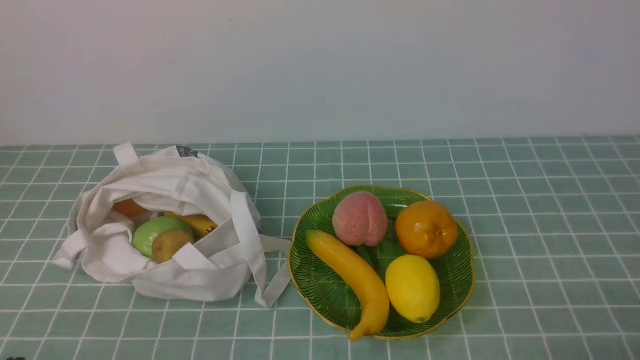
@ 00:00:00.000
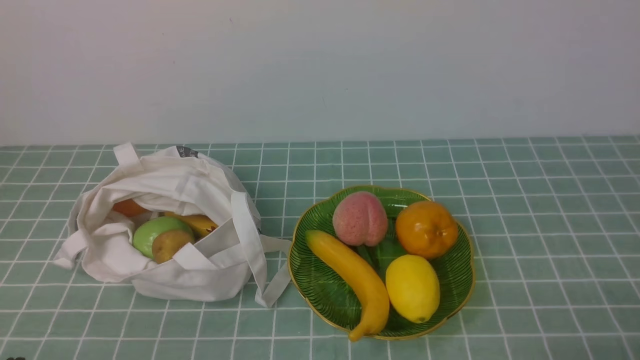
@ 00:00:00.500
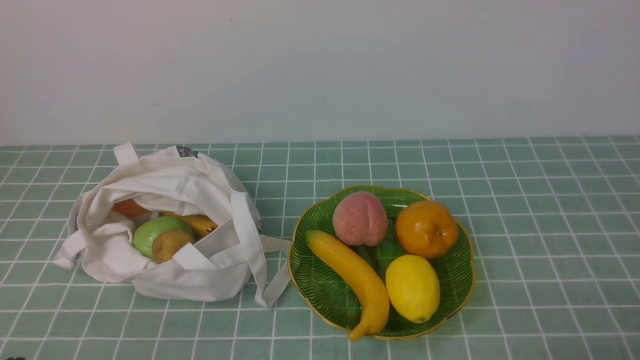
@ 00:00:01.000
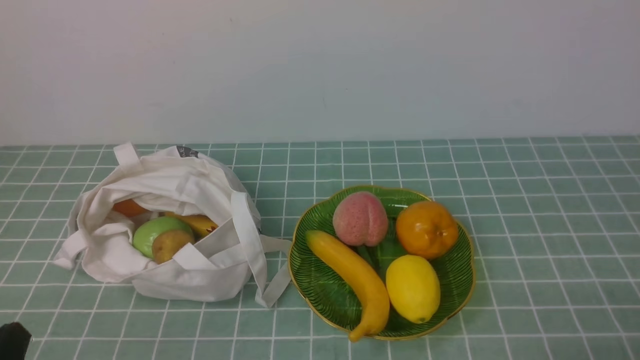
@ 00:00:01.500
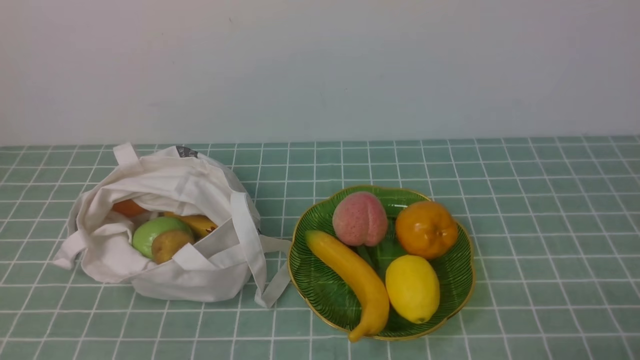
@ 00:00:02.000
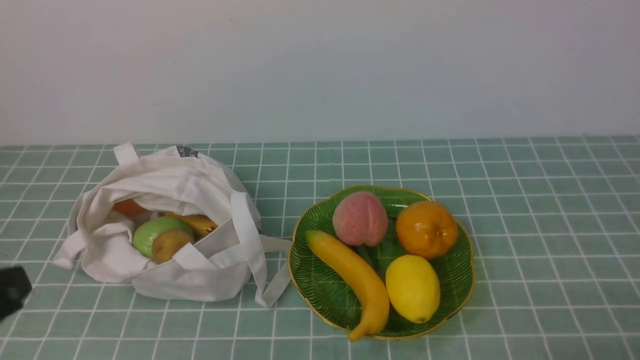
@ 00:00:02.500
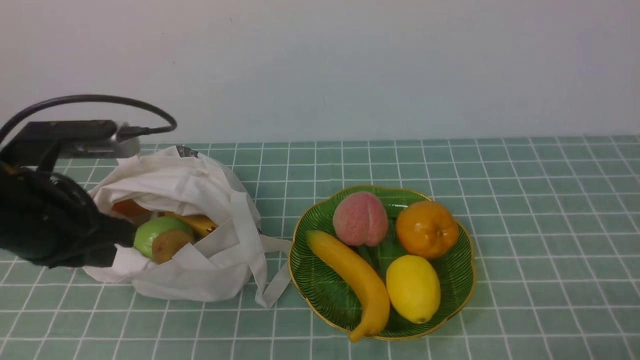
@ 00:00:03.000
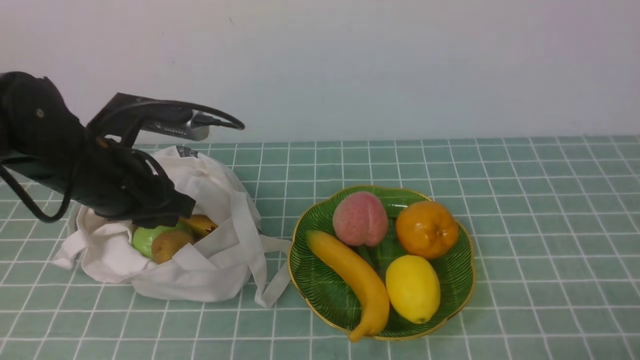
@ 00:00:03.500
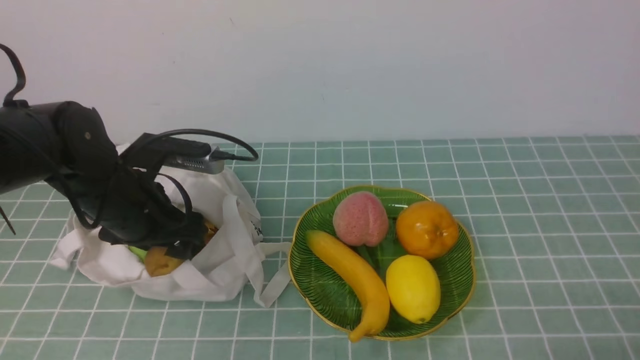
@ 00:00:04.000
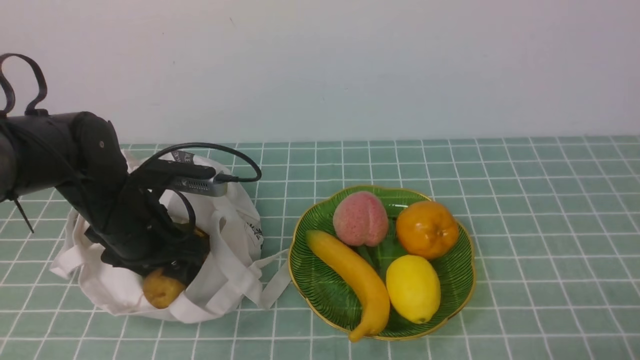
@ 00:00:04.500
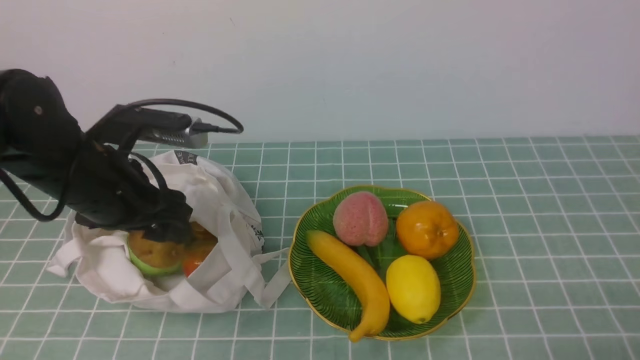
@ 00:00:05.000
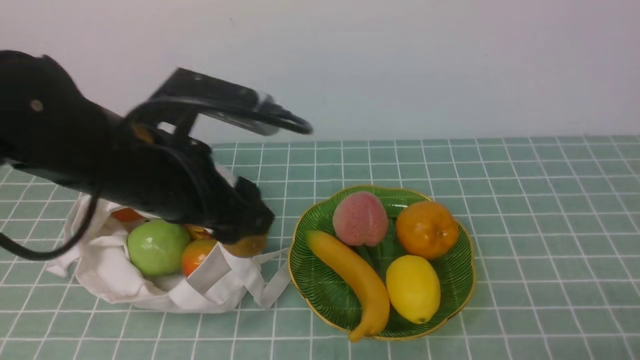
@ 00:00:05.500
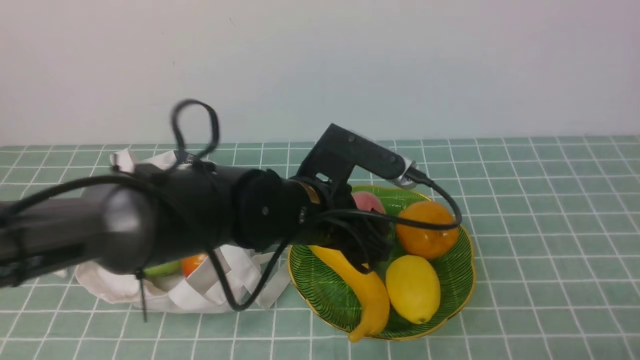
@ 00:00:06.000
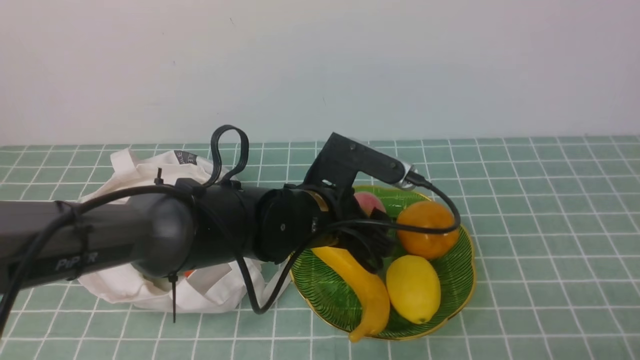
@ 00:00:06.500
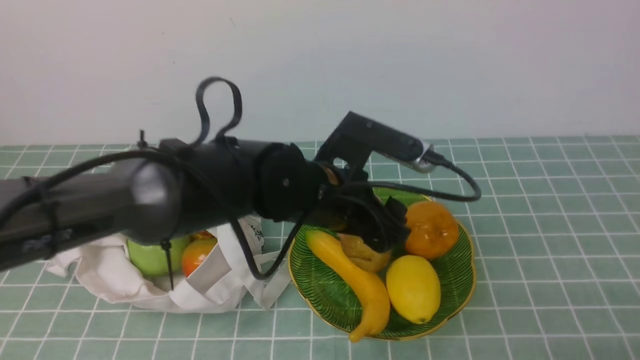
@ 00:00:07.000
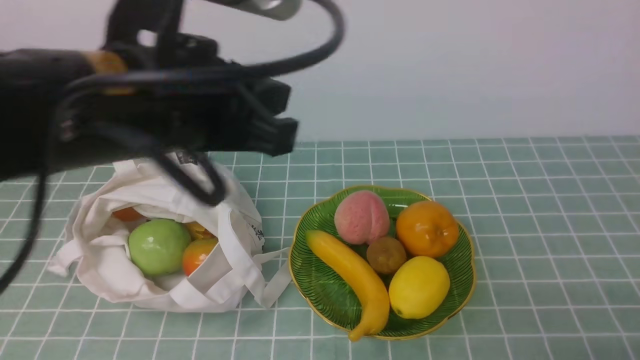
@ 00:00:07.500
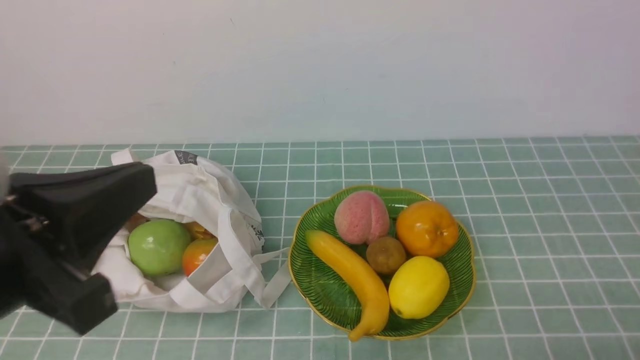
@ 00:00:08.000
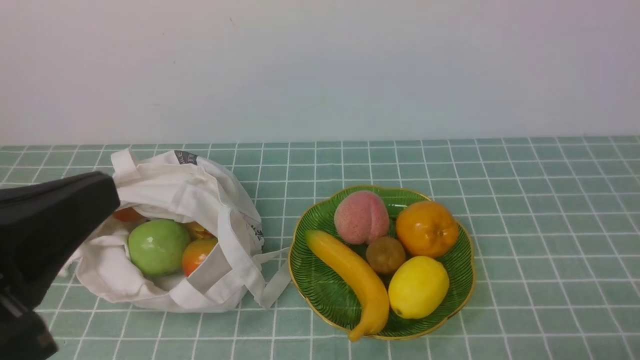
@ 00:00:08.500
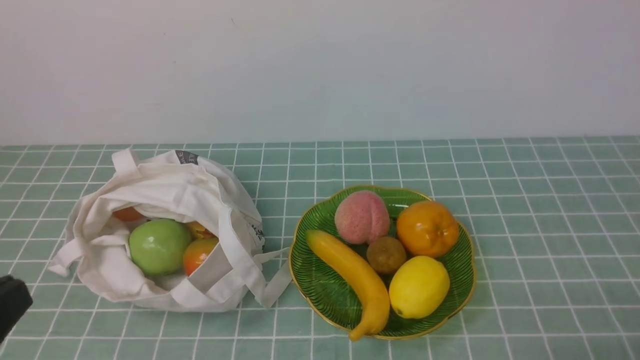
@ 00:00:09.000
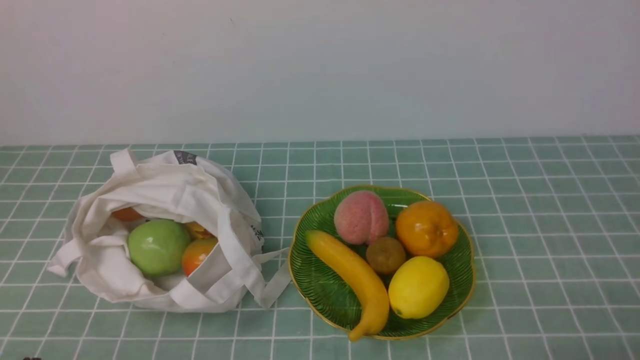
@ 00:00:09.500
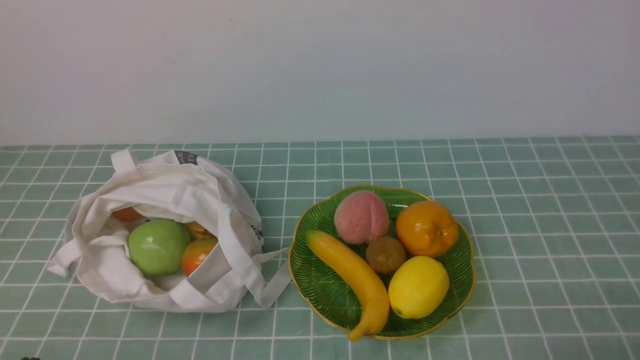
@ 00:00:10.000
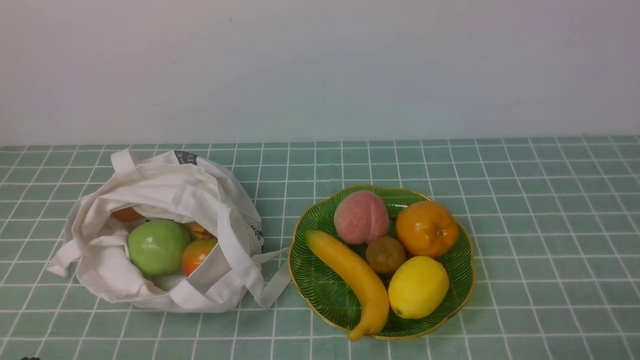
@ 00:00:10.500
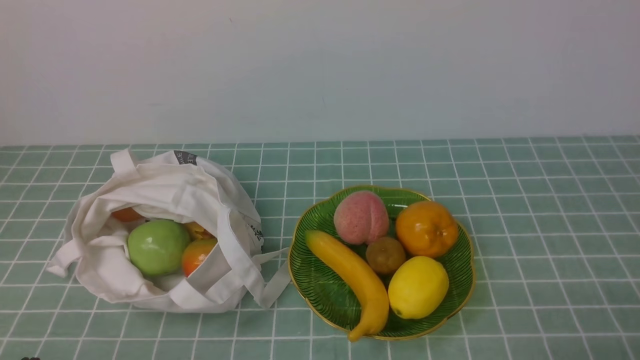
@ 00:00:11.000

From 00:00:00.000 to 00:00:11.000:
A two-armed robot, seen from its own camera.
Step, from 00:00:00.000 to 00:00:04.500: use the left arm to grab a kiwi from the bag.
Step, from 00:00:05.000 to 00:00:07.000: use the left arm to put the kiwi into the empty plate on the right.
From 00:00:02.000 to 00:00:03.500: The left gripper shifts some 25 cm forward.
From 00:00:03.500 to 00:00:05.500: The left gripper heads to the right, covering roughly 5 cm, and opens its fingers.
From 00:00:05.500 to 00:00:07.500: The left gripper moves upward and to the right, some 10 cm, and closes.
From 00:00:07.500 to 00:00:09.000: The left gripper travels backward and to the left by some 25 cm.
From 00:00:09.000 to 00:00:11.000: The left gripper goes some 15 cm downward.
